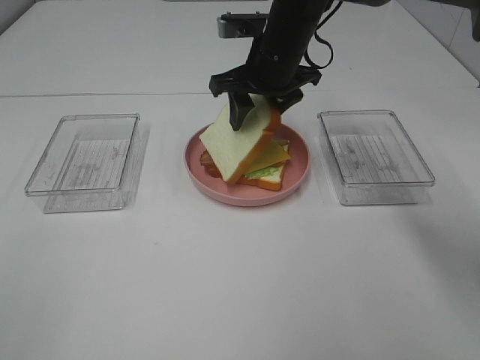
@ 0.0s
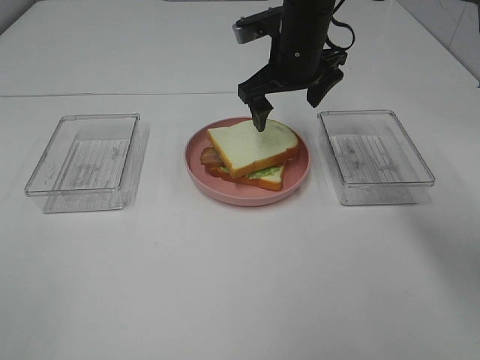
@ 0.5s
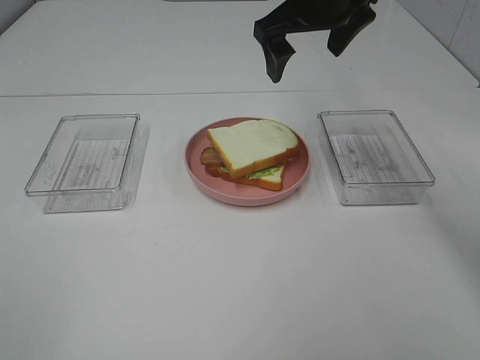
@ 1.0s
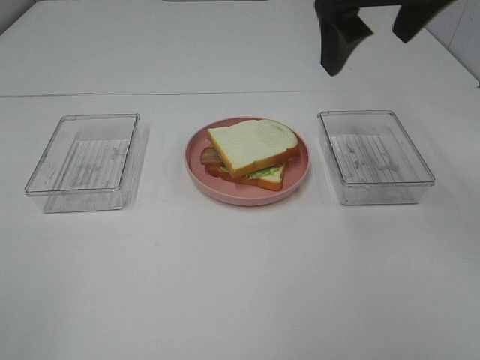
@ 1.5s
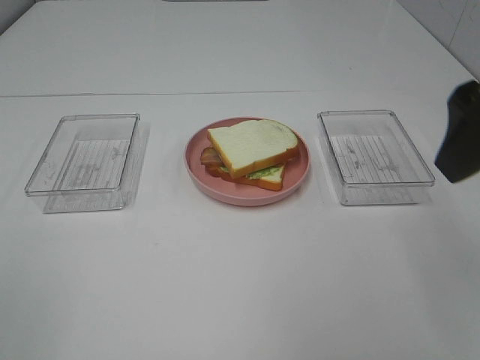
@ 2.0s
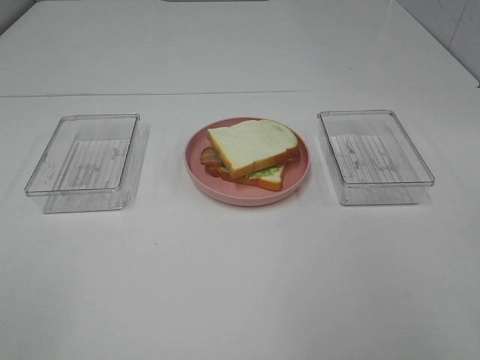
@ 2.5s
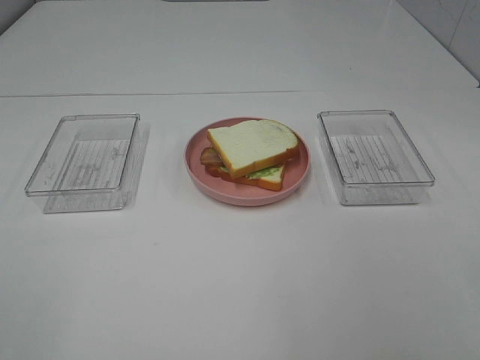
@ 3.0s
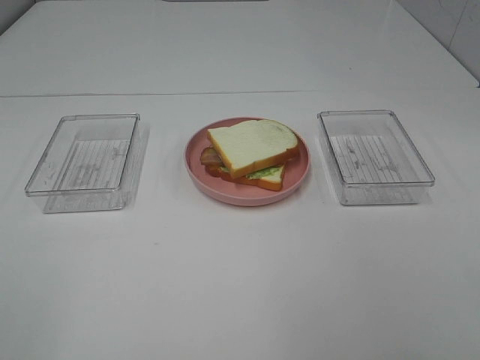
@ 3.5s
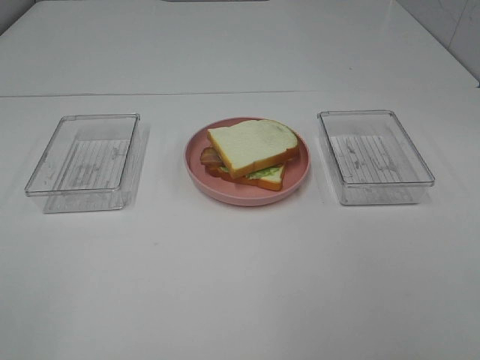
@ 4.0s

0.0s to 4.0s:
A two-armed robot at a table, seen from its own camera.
Task of the whole recording: Make sandwiches.
0.0s to 2.0s: The right gripper travels backward, upward and to the right by roughly 30 cm.
2.0s to 4.0s: The right gripper shifts about 20 cm backward and to the right.

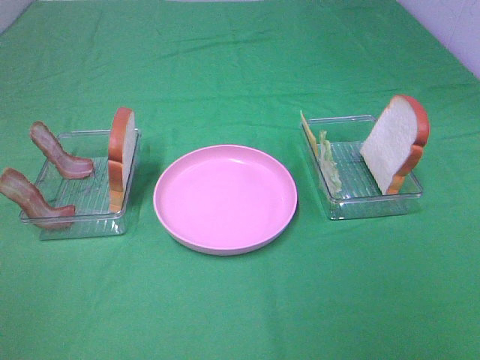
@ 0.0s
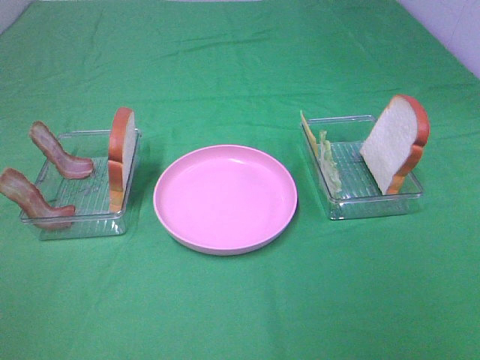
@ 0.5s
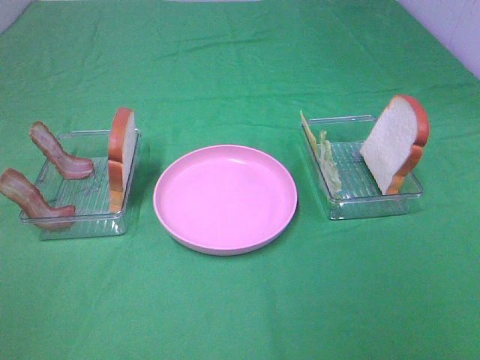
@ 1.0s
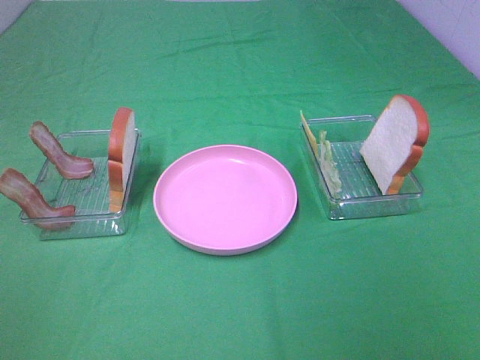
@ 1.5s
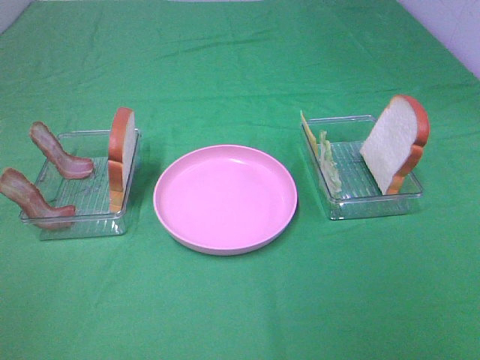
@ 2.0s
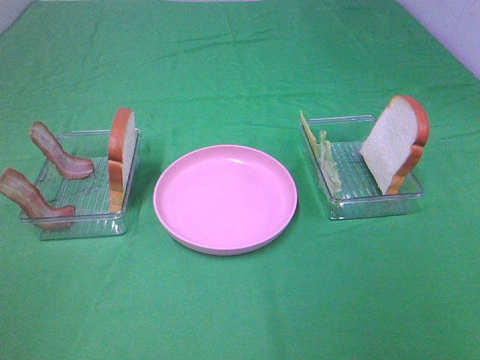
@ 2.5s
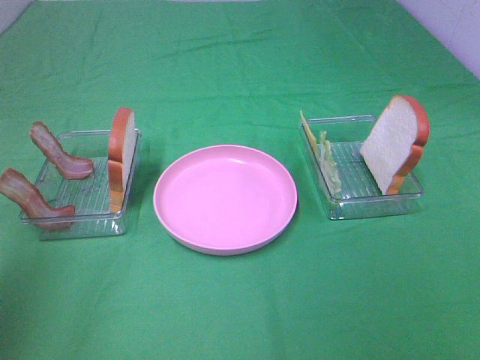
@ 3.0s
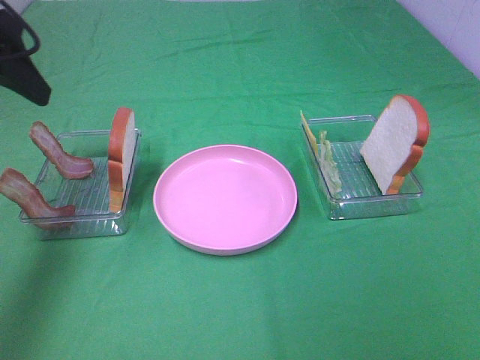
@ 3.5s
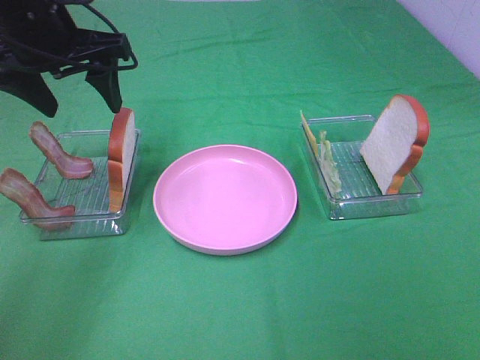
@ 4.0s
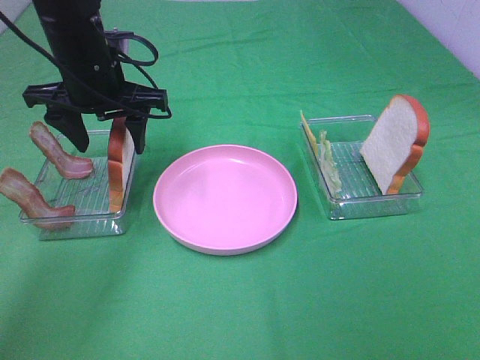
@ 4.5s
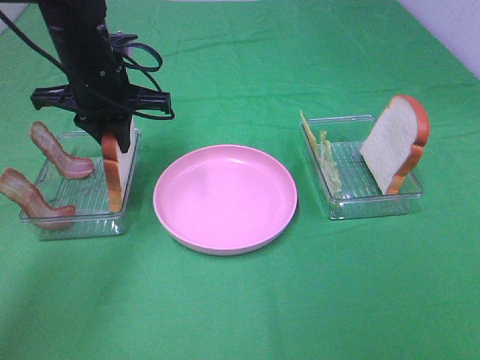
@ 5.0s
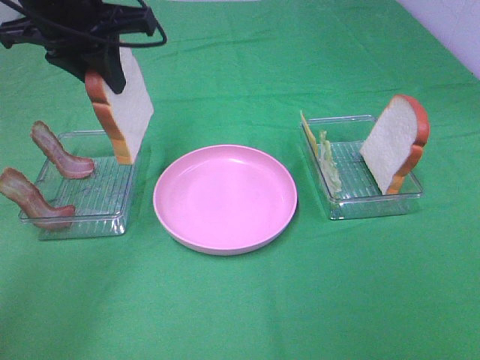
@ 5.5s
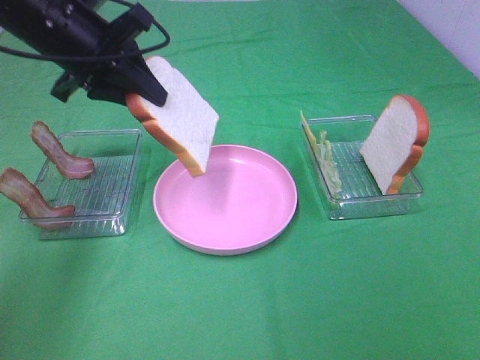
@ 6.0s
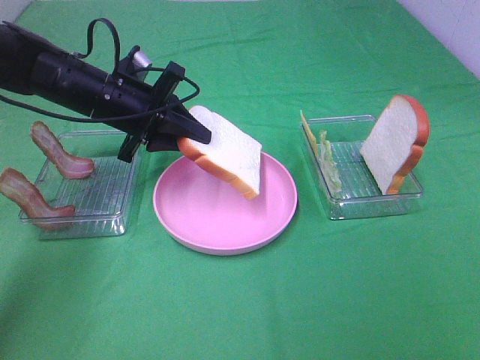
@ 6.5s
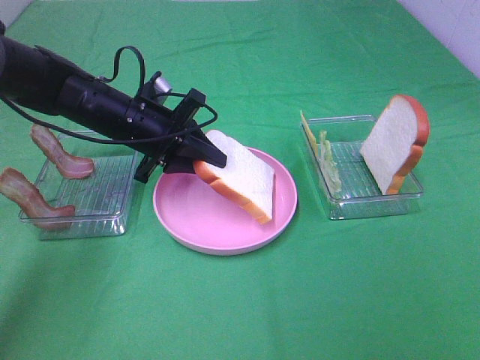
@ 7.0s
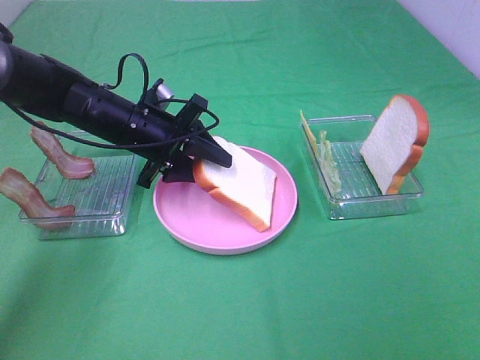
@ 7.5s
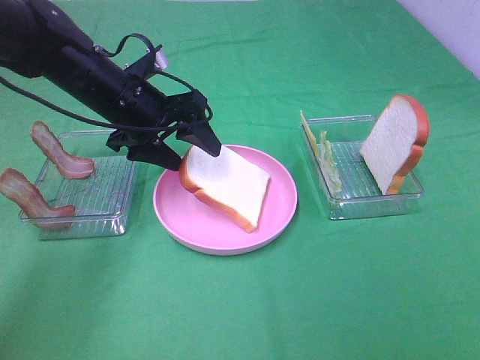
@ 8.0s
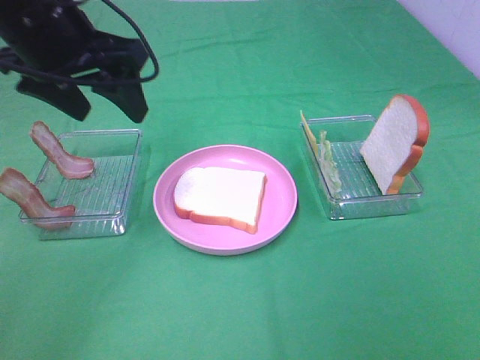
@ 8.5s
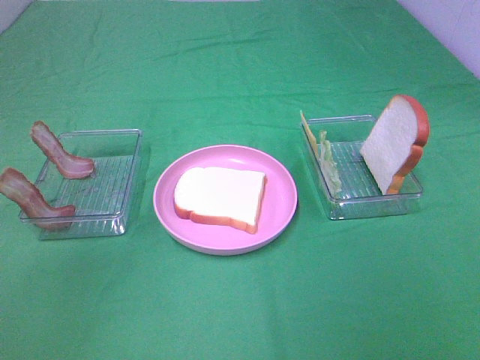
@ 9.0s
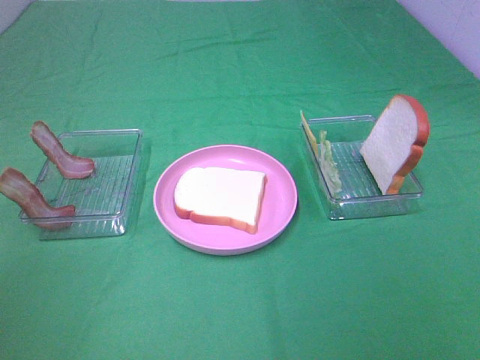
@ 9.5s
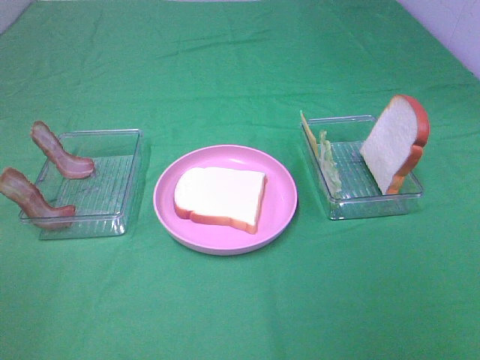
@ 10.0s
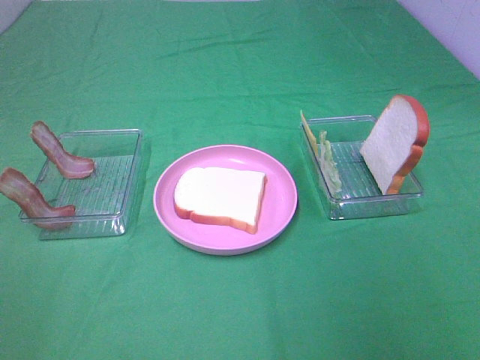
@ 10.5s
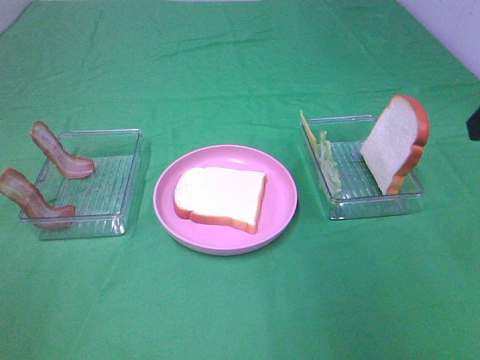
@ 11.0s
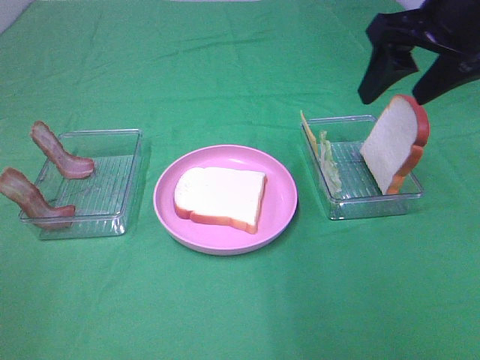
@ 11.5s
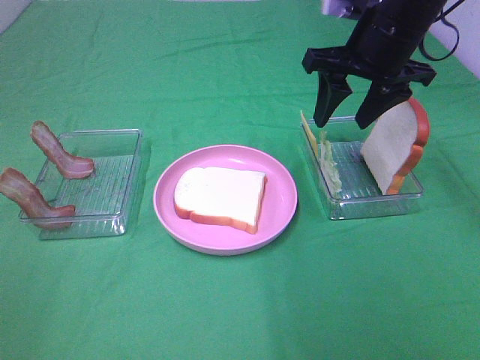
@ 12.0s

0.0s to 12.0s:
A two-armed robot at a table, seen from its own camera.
Task of the whole recording: Make sandwiches.
Step, 0.0s to 5.0s: Left hand:grab the bread slice.
Step, 5.5s to 8.0s: Left hand:place the bread slice on the plate.
0.0s to 2.0s: The two grippers keep their place.
2.0s to 4.0s: The left gripper travels forward by about 35 cm.
4.0s to 6.0s: The left gripper swings up and down, about 10 cm each way, with 2 reversals, and closes up.
6.0s to 8.0s: The left gripper shifts some 5 cm downward, and opens.
8.0s to 10.0s: The left gripper shifts some 40 cm backward and to the left.
10.0s to 12.0s: The right gripper shifts some 40 cm forward.

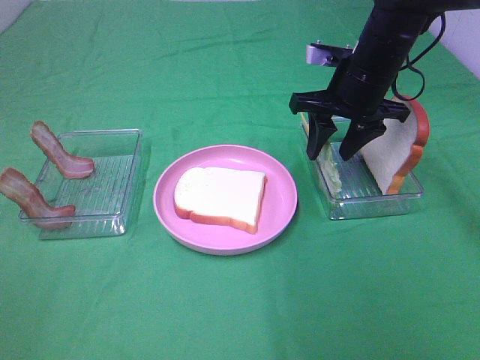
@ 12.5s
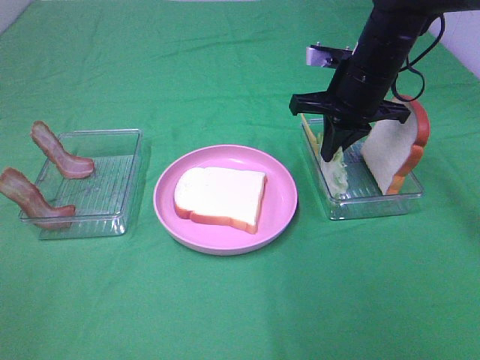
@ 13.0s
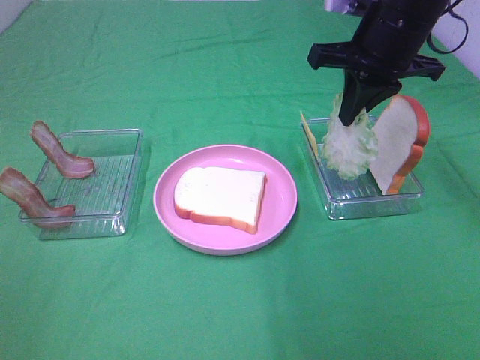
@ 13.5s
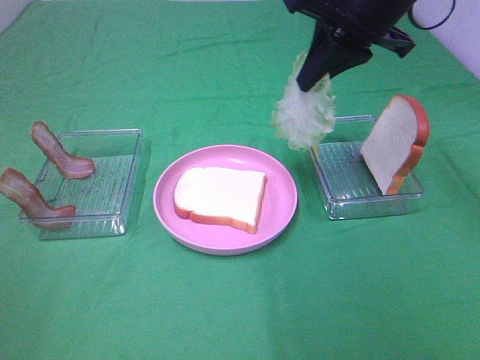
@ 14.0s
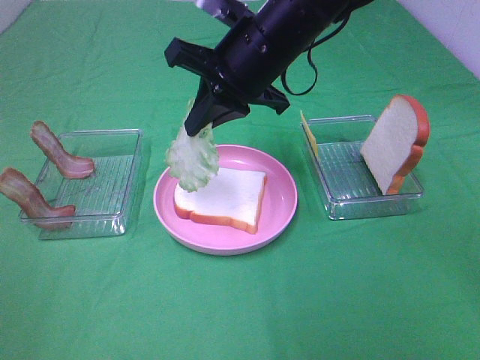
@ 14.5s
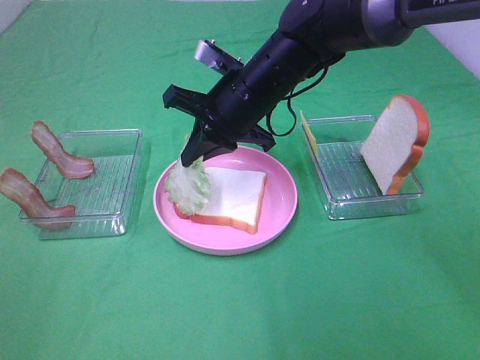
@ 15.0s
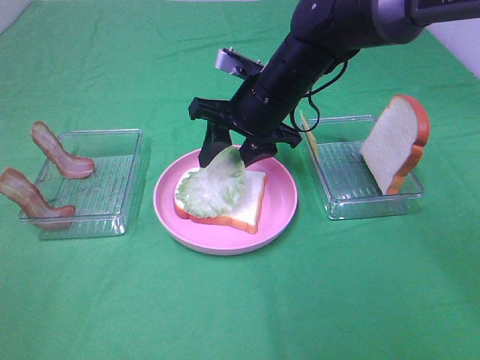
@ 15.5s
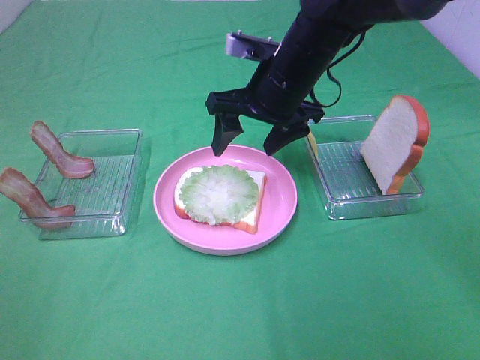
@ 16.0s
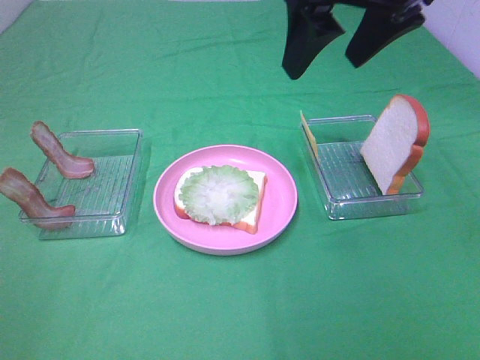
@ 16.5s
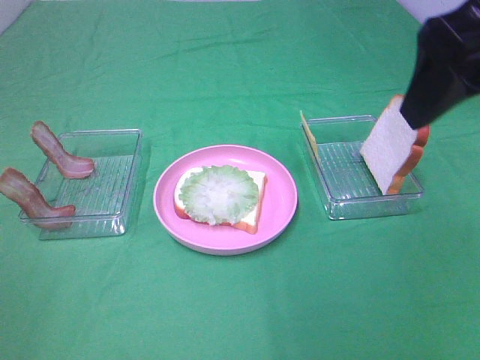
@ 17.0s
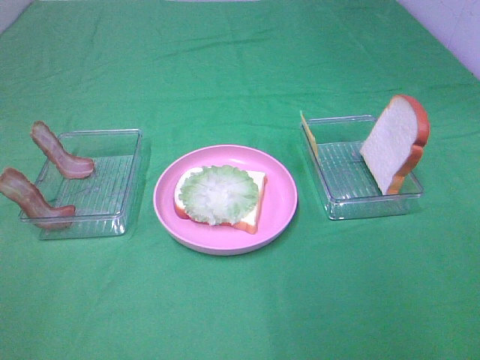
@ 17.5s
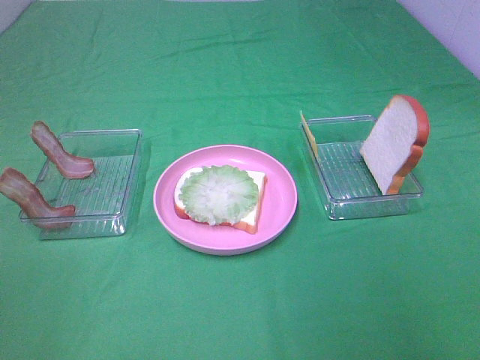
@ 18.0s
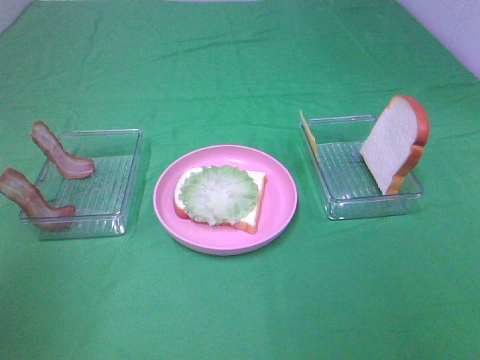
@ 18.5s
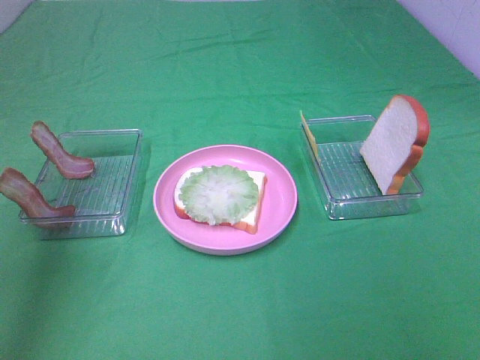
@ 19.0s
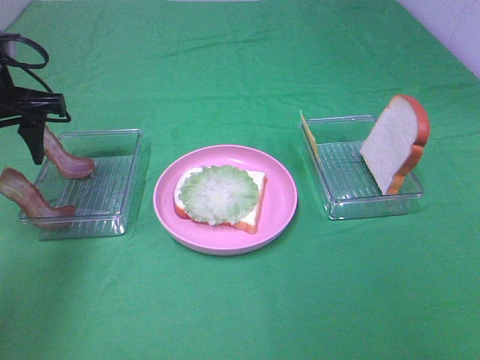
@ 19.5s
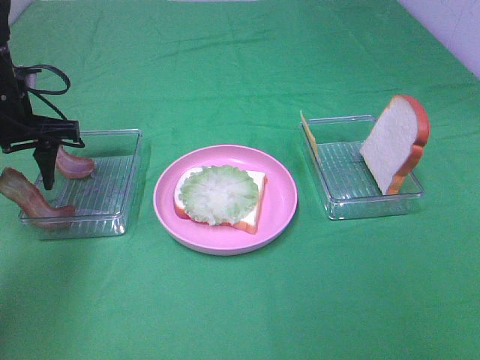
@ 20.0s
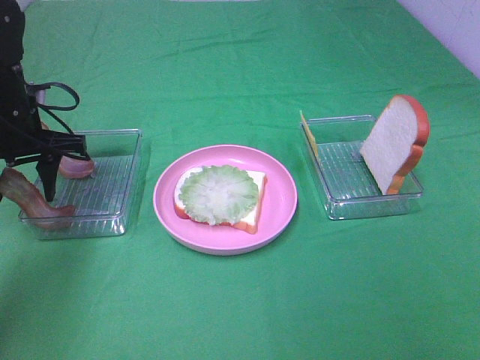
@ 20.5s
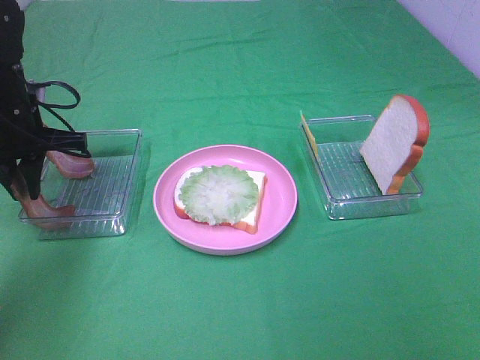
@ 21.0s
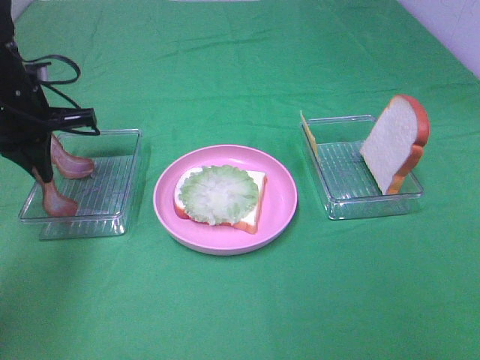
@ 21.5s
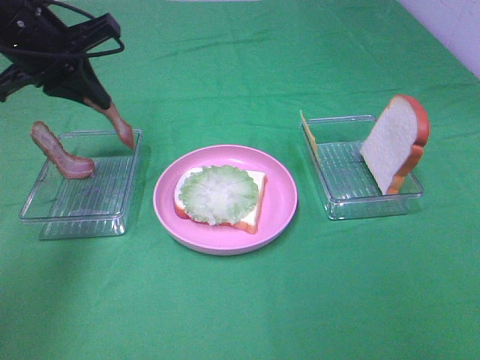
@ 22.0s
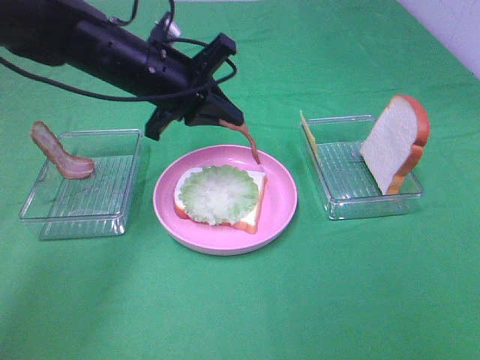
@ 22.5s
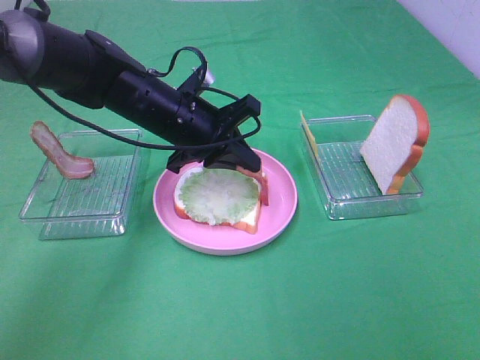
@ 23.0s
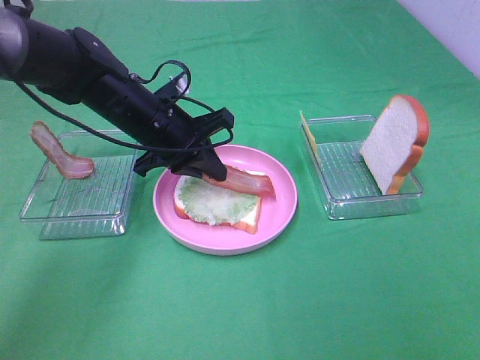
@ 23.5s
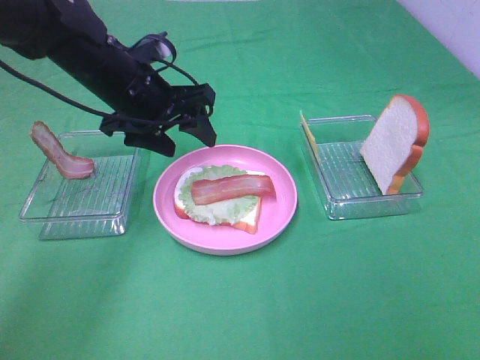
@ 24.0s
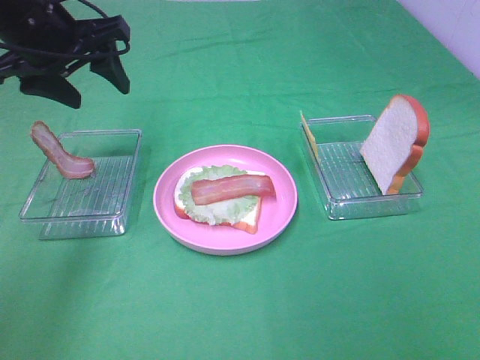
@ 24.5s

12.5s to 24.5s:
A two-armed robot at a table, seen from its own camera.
Task of the whole recording: Make sandwiches.
Step, 13.0s to 15.5s: Right hand:place the lettuce slice on the bread slice.
Step, 16.0s to 21.5s: Left hand:grab the bacon.
Step, 22.0s to 24.0s: Left hand:place bacon on lettuce slice.
12.5s to 14.5s: The right gripper moves to the left, roughly 10 cm, and closes its fingers.
14.5s to 16.5s: The right gripper heads upward, to the right and backward, covering about 15 cm, and opens its fingers.
16.5s to 18.5s: The right gripper is displaced backward and to the right by approximately 35 cm; the left gripper travels forward and upward by about 15 cm.
18.5s to 20.5s: The left gripper is displaced forward and downward by about 30 cm.
20.5s to 22.5s: The left gripper moves to the right, approximately 15 cm, and closes its fingers.
22.5s to 24.5s: The left gripper moves to the left and upward, some 15 cm, and opens up.
